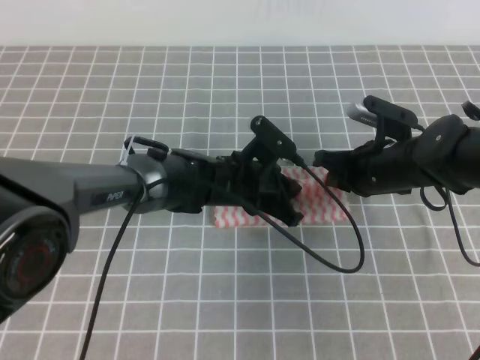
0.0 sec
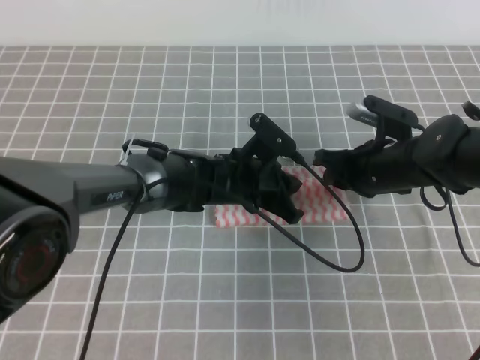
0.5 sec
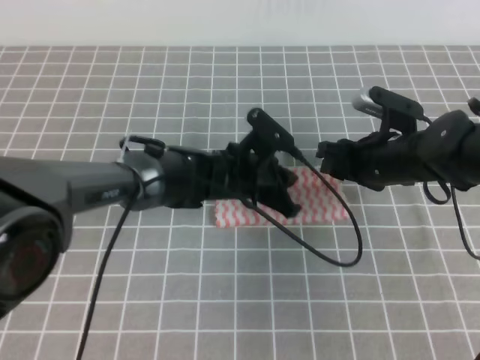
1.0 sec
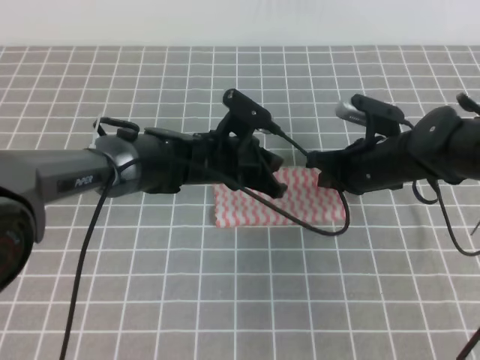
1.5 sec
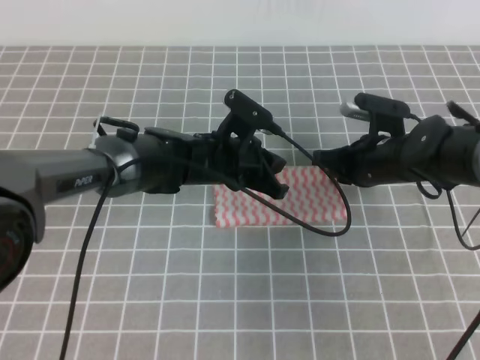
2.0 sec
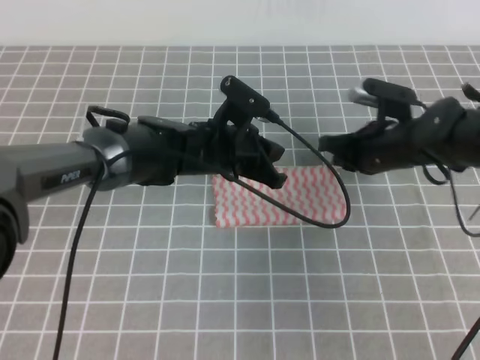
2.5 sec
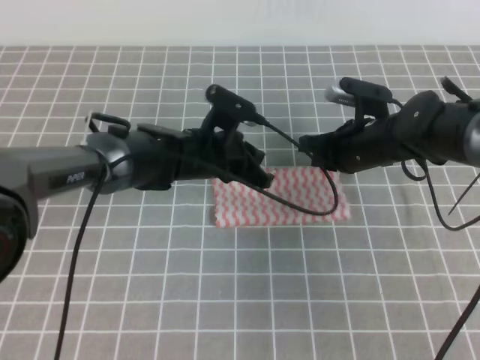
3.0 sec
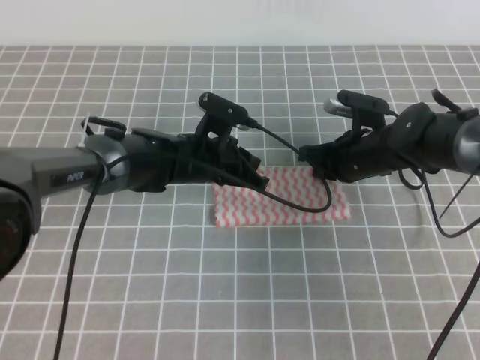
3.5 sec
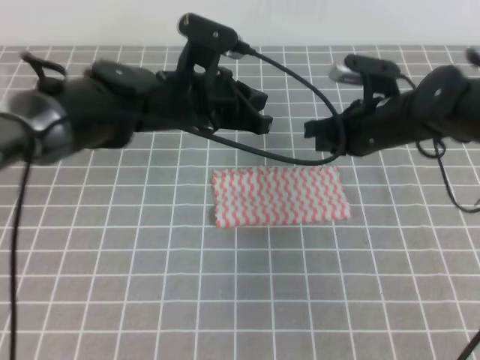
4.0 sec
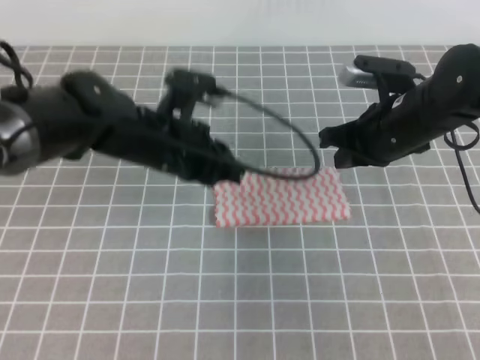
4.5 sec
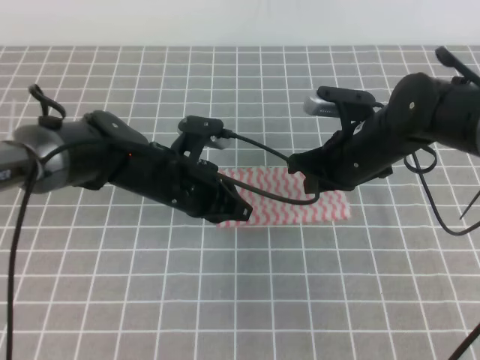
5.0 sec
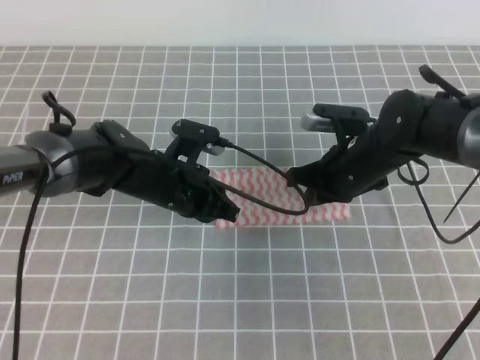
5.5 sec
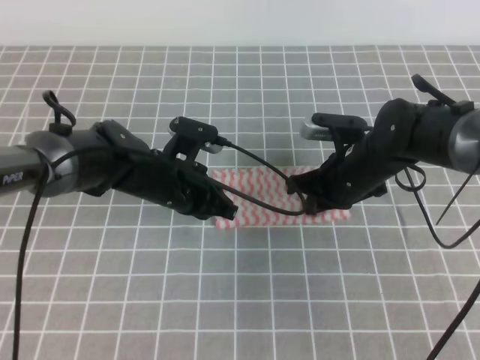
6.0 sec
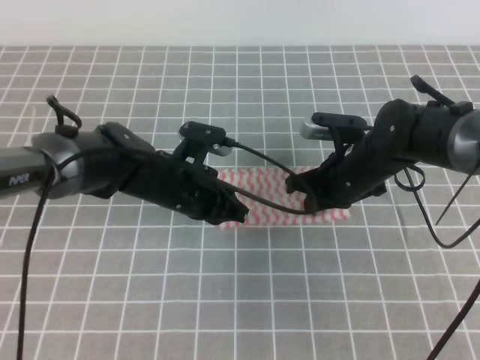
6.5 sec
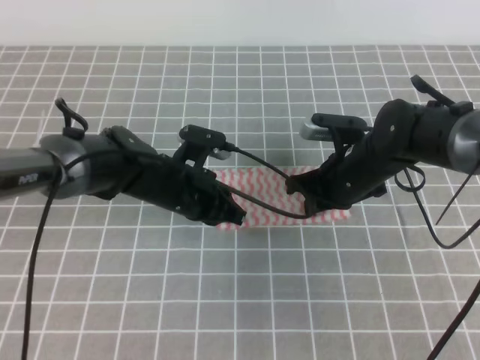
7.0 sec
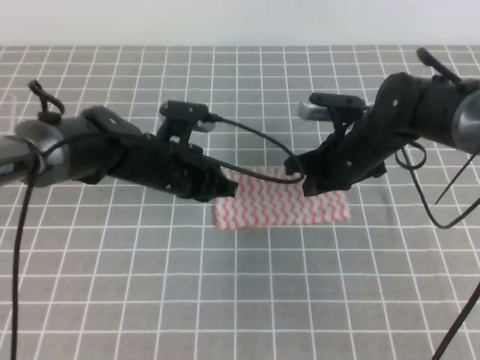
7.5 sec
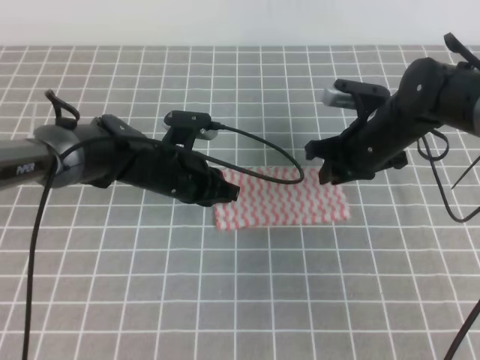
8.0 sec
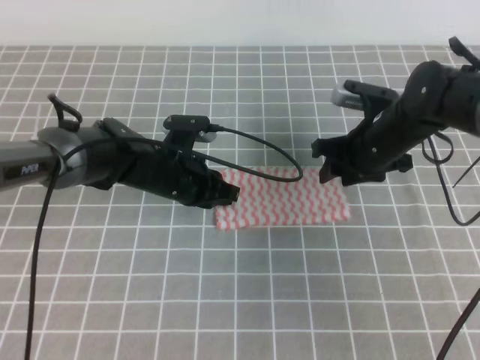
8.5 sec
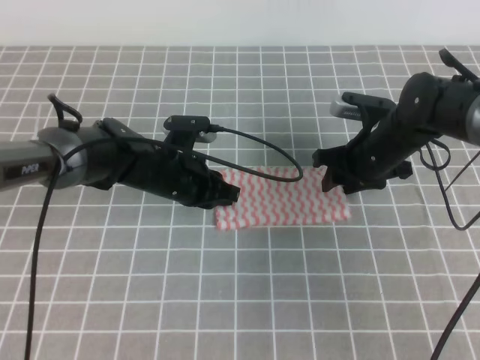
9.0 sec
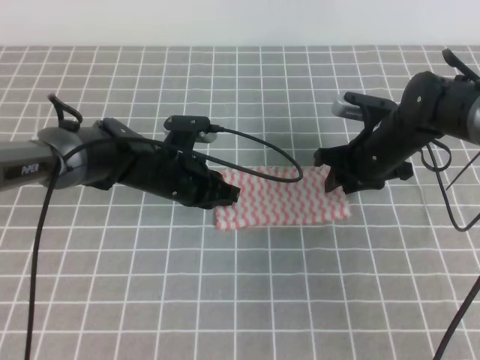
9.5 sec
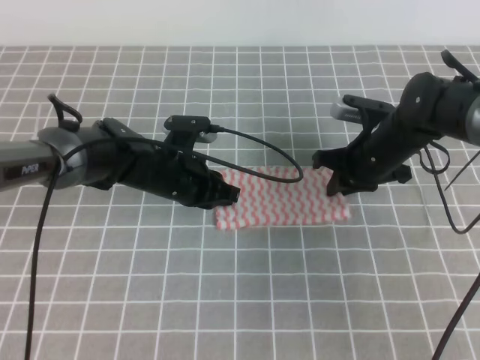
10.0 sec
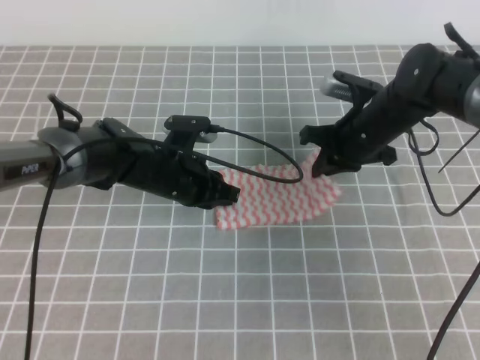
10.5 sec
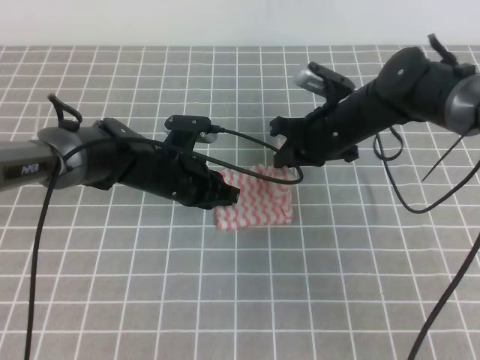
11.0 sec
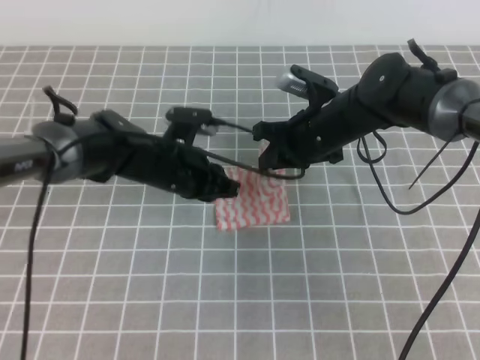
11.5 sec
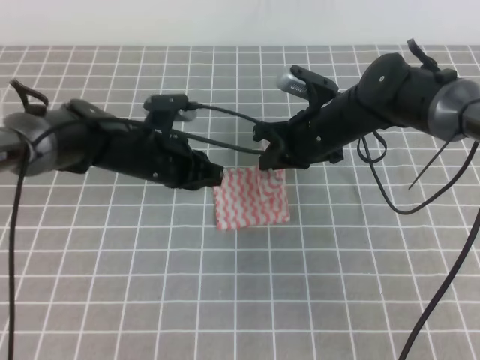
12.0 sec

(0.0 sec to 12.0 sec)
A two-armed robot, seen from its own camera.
0.0 sec - 2.0 sec: The right gripper opens, then closes once more.
2.0 sec - 4.0 sec: The left gripper goes roughly 10 cm upward.
4.0 sec - 6.0 sec: The right gripper shifts by roughly 5 cm; the left gripper heads downward, covering some 10 cm.
6.0 sec - 8.0 sec: The right gripper opens.
8.0 sec - 10.0 sec: The right gripper opens and closes again.
10.0 sec - 12.0 sec: The right gripper shifts some 5 cm to the left.

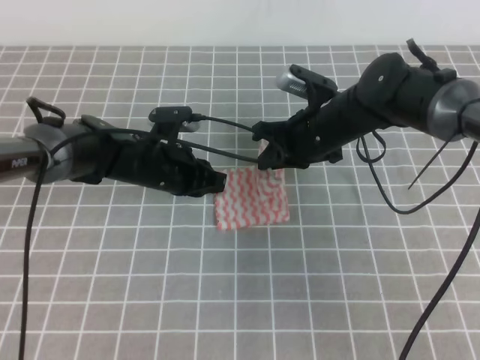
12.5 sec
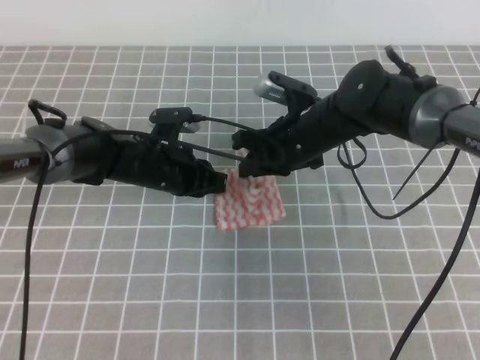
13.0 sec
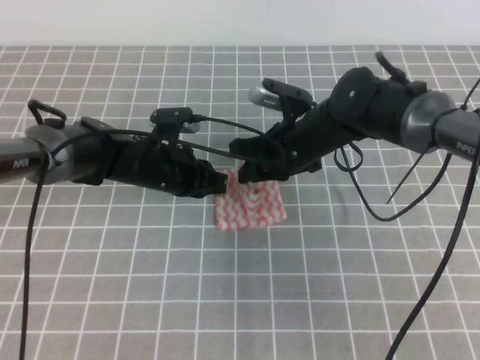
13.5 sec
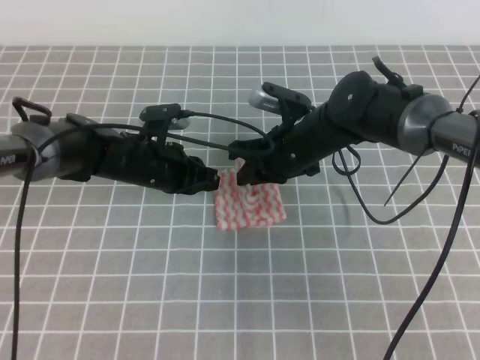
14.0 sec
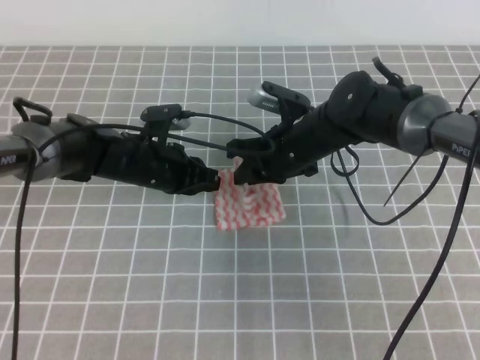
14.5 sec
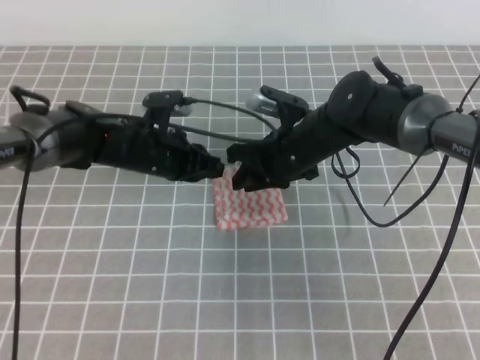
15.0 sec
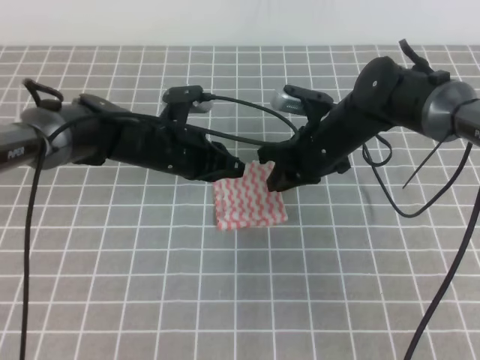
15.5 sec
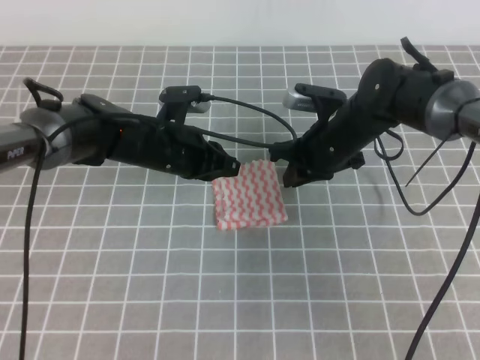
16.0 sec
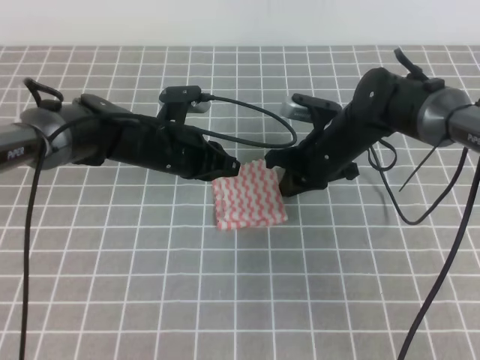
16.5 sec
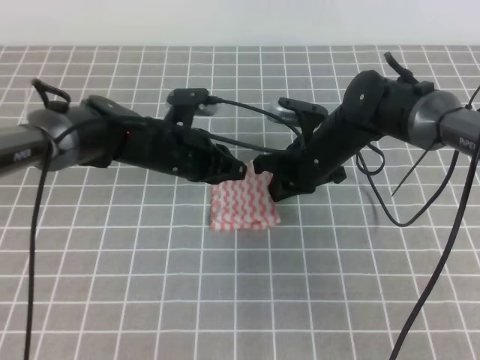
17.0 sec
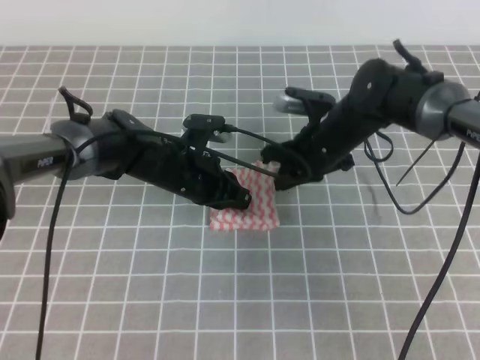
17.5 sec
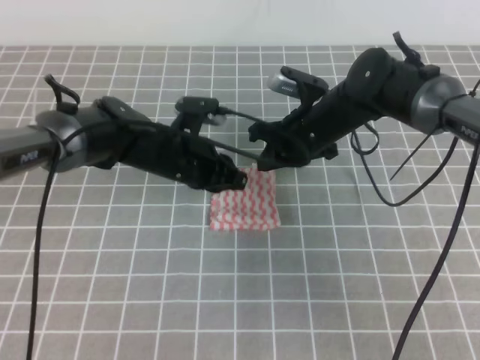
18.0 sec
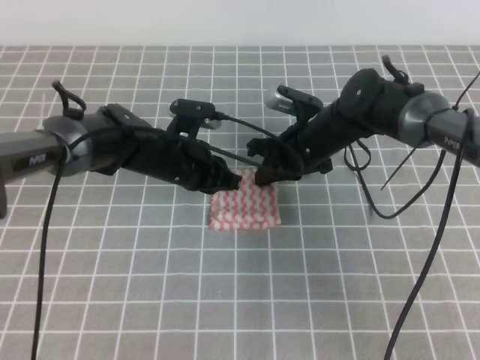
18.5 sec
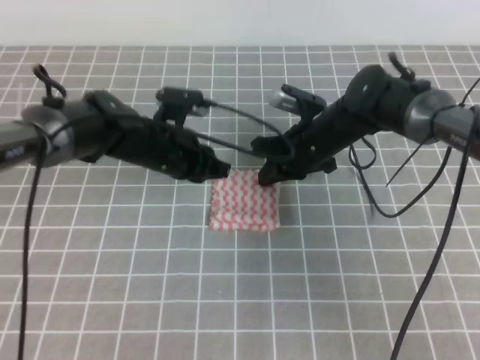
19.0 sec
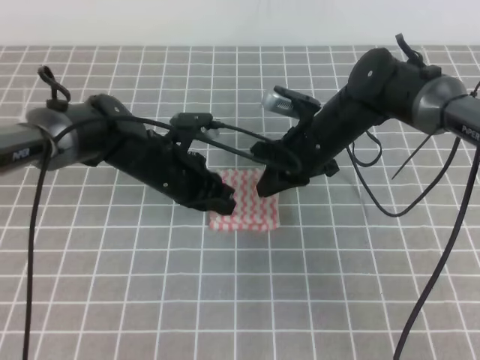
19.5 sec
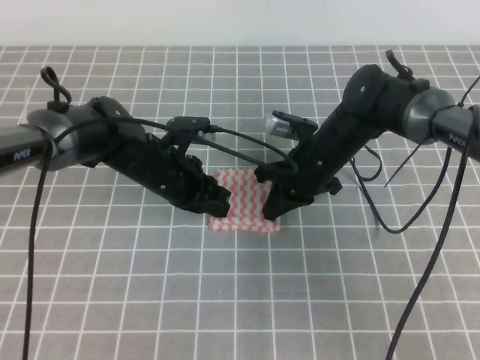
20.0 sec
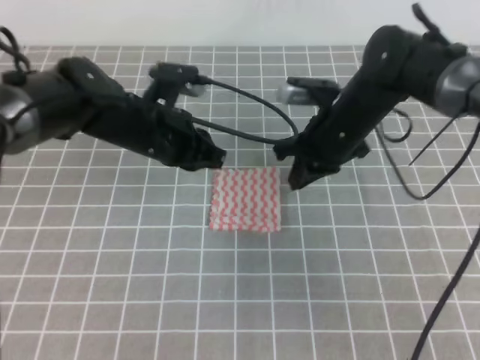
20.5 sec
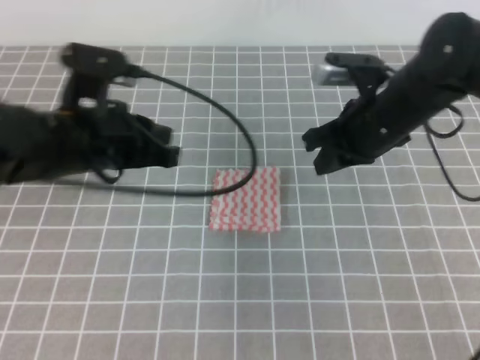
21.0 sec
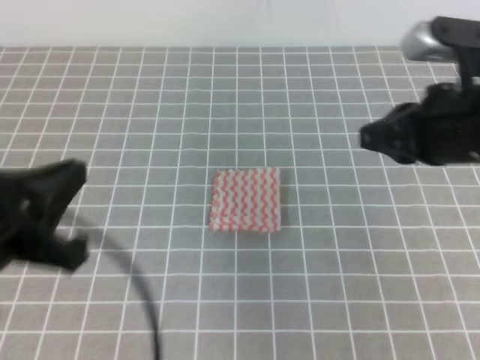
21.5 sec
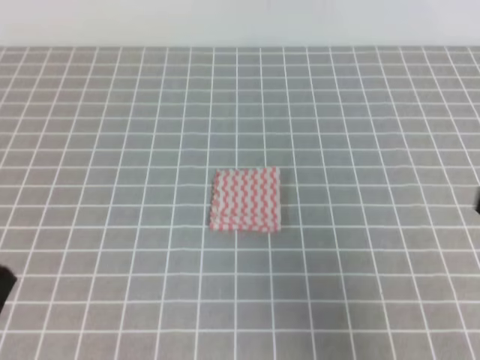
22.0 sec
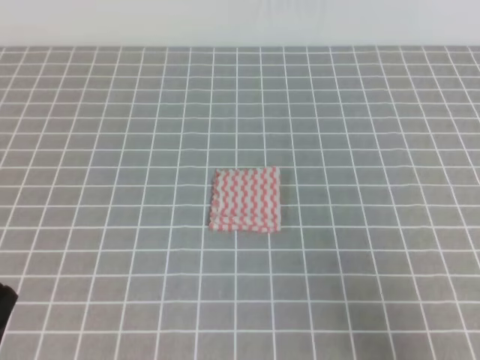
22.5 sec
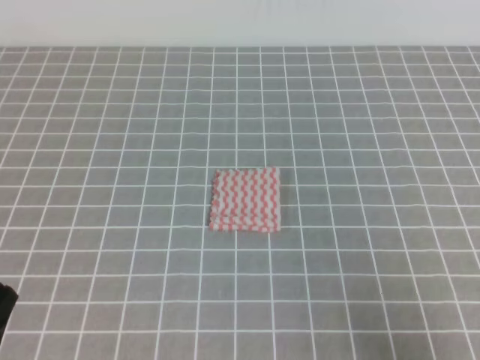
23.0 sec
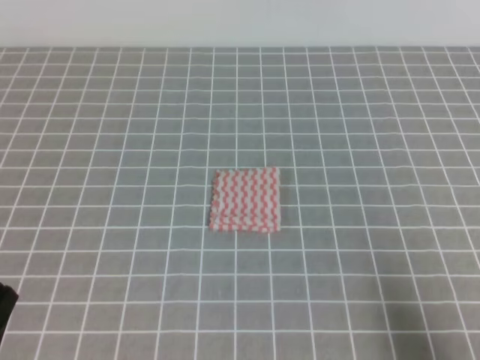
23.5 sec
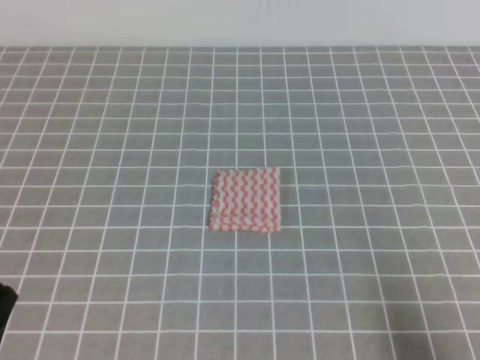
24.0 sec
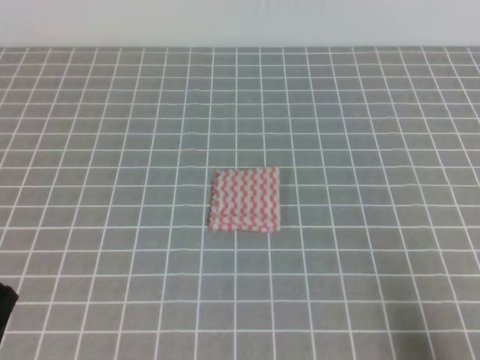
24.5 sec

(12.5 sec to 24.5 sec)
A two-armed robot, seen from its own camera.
12.5 sec - 14.5 sec: The grippers move only a little.
14.5 sec - 16.5 sec: The right gripper shifts by about 5 cm.
16.5 sec - 18.5 sec: The grippers stay close to where they were, moving slightly.
18.5 sec - 20.5 sec: The right gripper ends up about 5 cm from where it was; the left gripper goes roughly 5 cm upward.
20.5 sec - 22.5 sec: The left gripper goes about 35 cm backward and to the left, while the right gripper travels backward and to the right by approximately 35 cm.
22.5 sec - 24.5 sec: The right gripper goes about 5 cm downward.
